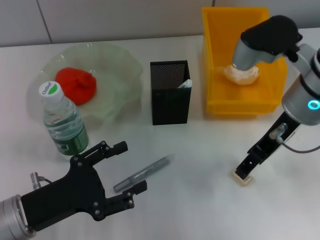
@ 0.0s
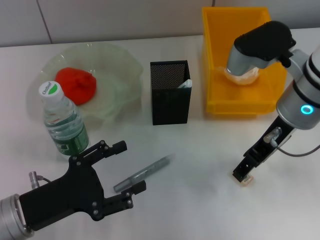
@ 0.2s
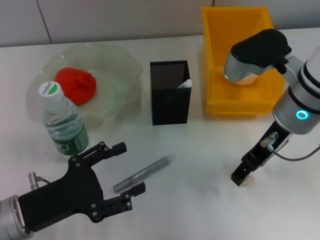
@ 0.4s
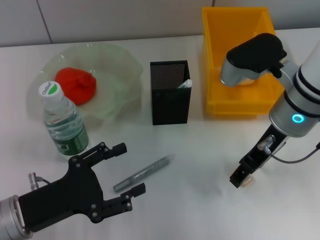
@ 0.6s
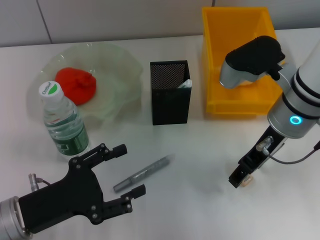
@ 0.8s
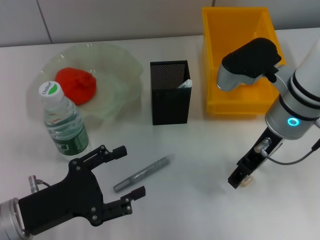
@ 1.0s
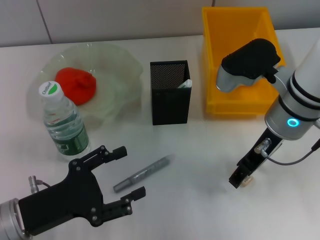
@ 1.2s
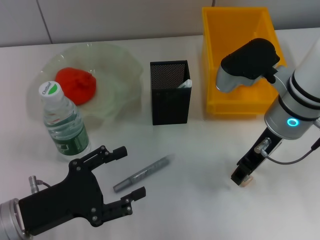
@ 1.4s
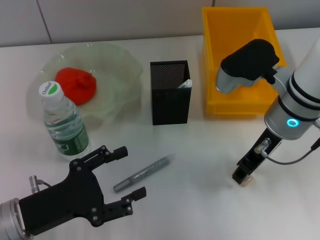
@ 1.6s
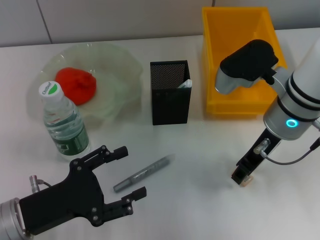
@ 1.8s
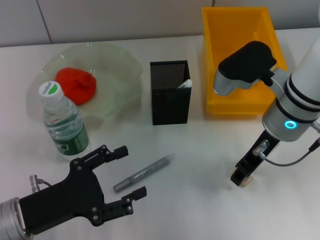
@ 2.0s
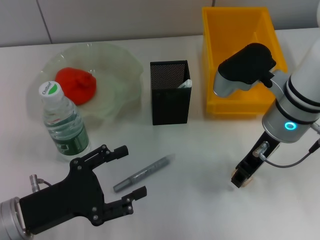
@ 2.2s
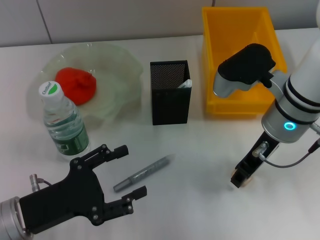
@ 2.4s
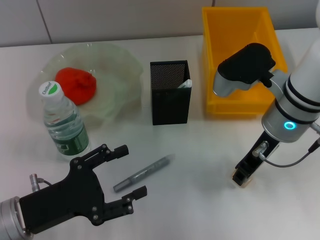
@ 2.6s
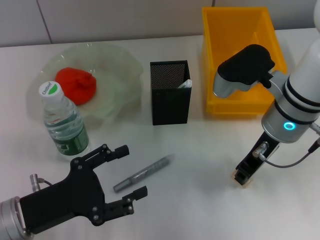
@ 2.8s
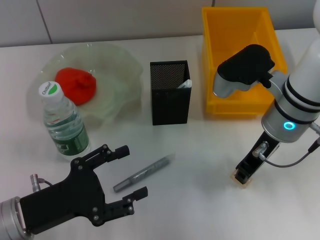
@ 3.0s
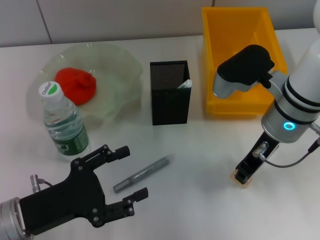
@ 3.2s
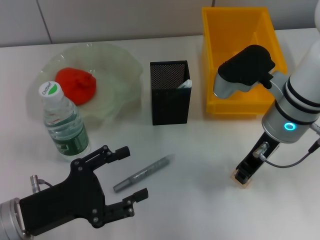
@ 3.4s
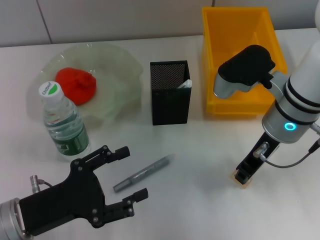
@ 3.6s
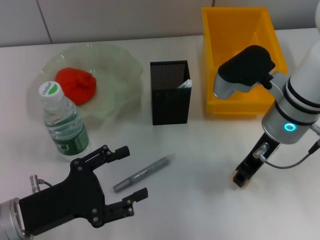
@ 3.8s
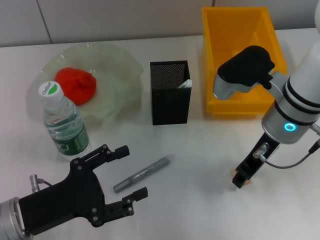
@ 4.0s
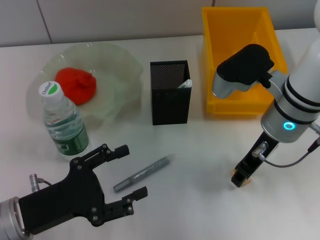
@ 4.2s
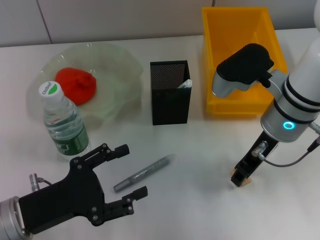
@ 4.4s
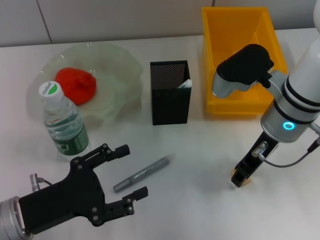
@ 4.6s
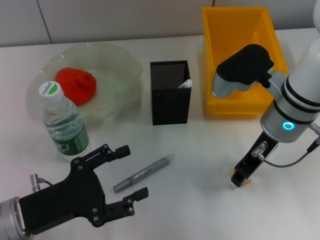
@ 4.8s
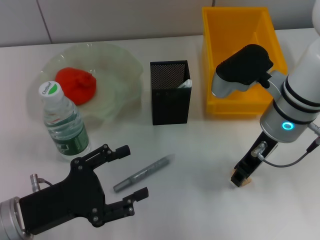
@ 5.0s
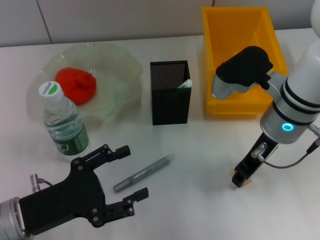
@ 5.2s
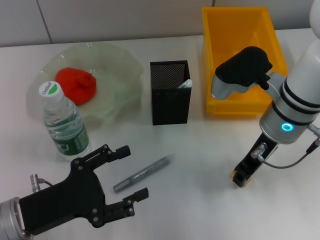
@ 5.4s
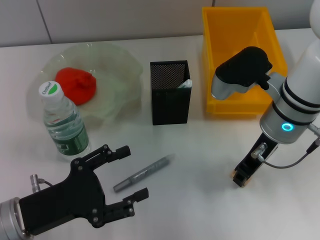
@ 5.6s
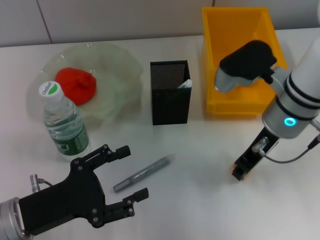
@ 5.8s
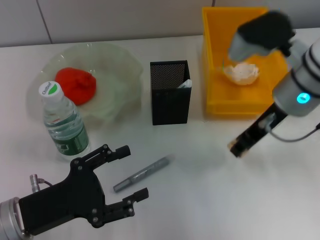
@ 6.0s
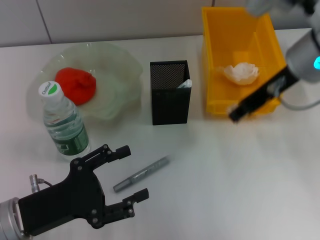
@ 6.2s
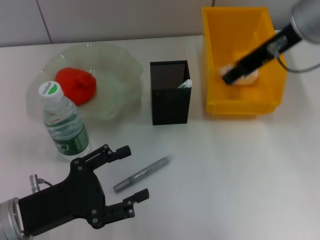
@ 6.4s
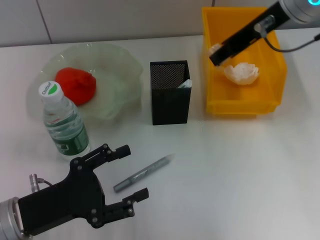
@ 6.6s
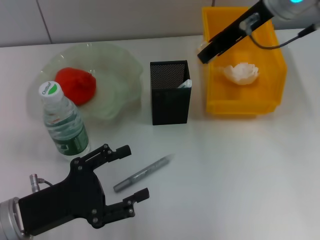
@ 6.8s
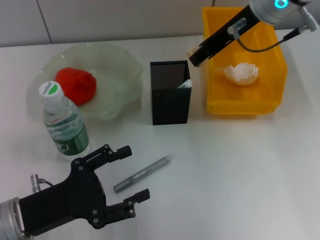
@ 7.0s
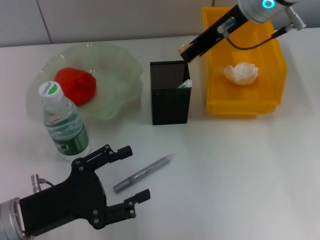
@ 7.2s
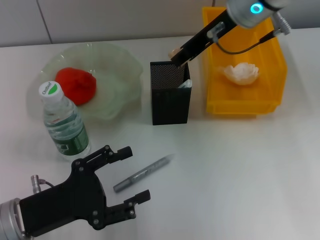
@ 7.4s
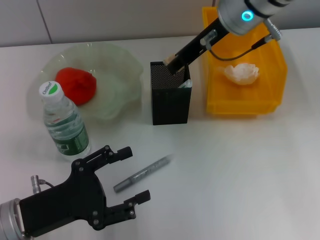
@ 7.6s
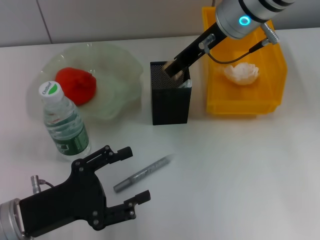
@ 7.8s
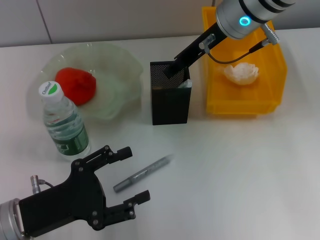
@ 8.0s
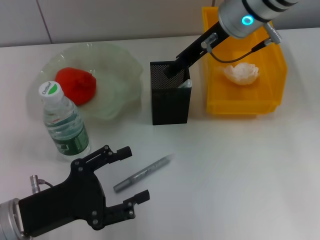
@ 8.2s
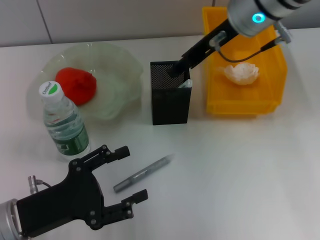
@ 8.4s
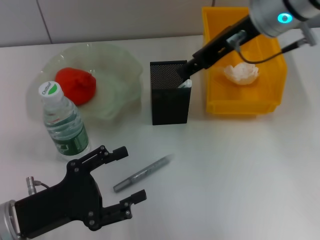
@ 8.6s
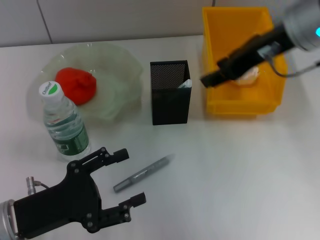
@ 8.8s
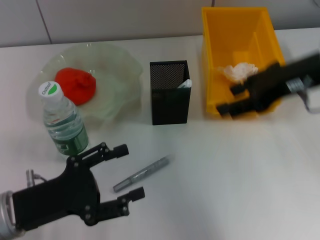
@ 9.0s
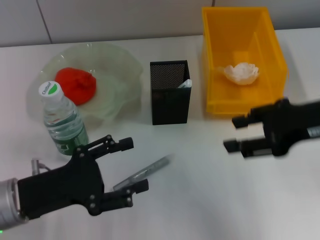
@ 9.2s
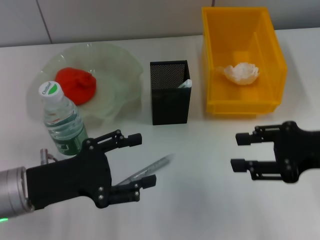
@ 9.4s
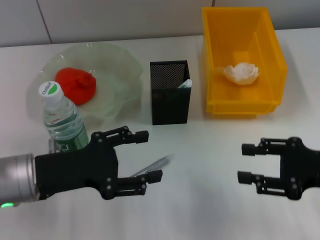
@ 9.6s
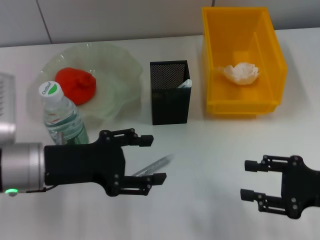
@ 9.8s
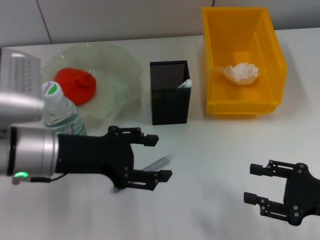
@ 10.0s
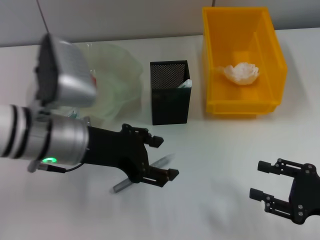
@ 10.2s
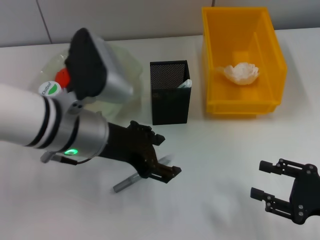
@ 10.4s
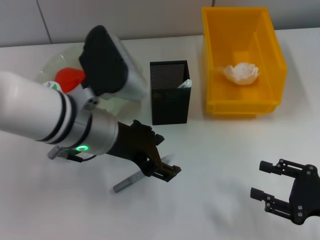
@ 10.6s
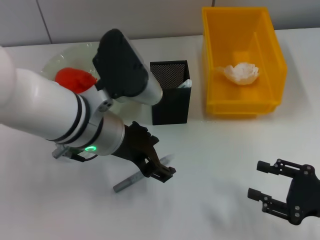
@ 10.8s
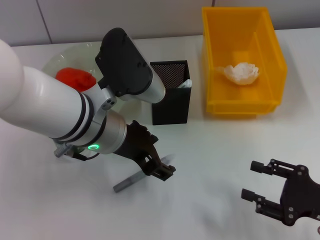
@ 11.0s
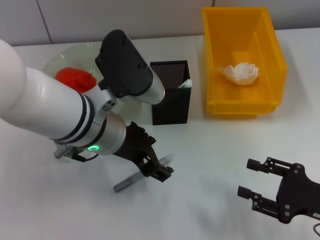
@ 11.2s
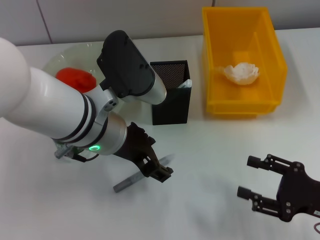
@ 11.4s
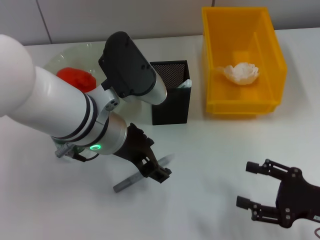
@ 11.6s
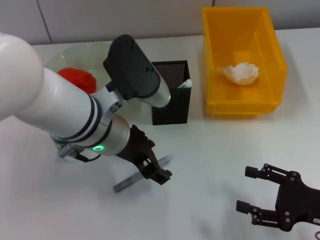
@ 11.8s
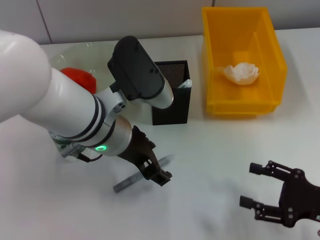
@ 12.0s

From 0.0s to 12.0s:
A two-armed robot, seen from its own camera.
Step, from 0.0s to 5.4s: Grab the eraser with the right hand.
Step, from 5.6s to 8.0s: Put the eraser into the pen holder with the right hand.
From 0.0s to 1.6s: The grippers make only small movements.
From 1.6s to 3.0s: The right gripper closes.
From 3.0s to 4.4s: Both grippers stay put.
From 4.4s to 6.0s: The grippers stay close to where they were, moving slightly.
From 6.0s to 7.6s: The right gripper is displaced forward, upward and to the left by some 10 cm.
From 7.6s to 9.0s: The right gripper heads backward and to the right, covering approximately 15 cm, and opens.
From 9.0s to 10.4s: The right gripper travels downward, backward and to the right by about 25 cm. Meanwhile the left gripper goes about 15 cm to the right, upward and forward.

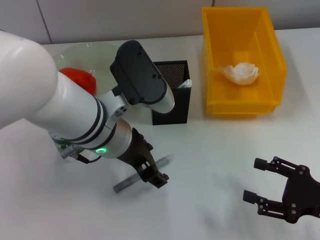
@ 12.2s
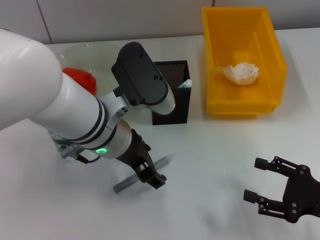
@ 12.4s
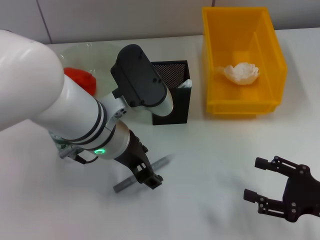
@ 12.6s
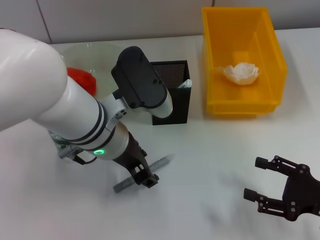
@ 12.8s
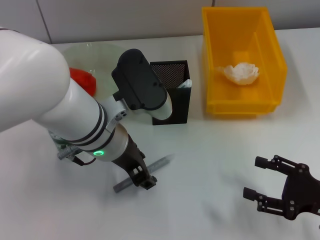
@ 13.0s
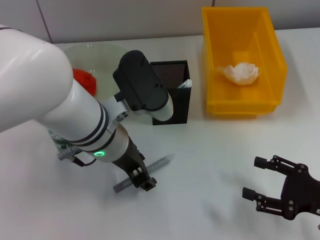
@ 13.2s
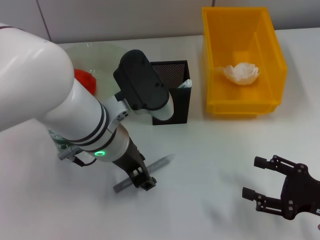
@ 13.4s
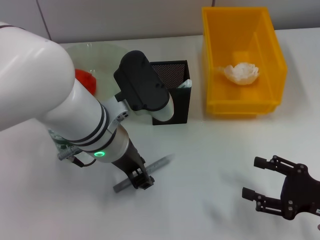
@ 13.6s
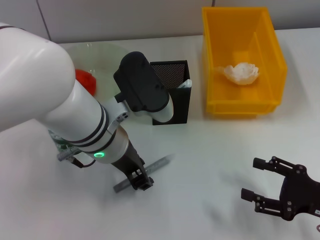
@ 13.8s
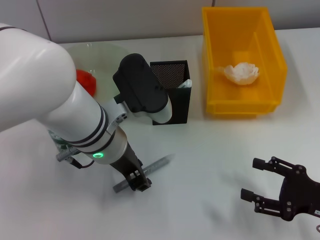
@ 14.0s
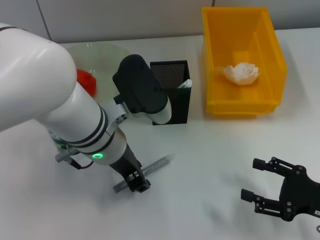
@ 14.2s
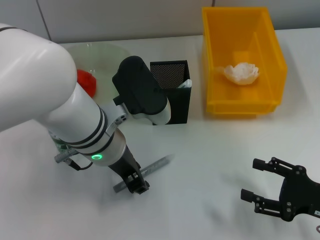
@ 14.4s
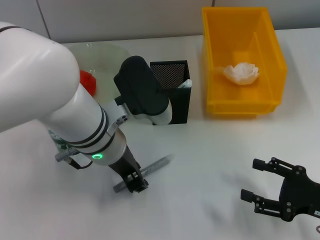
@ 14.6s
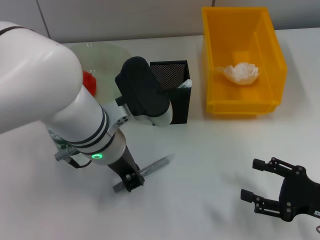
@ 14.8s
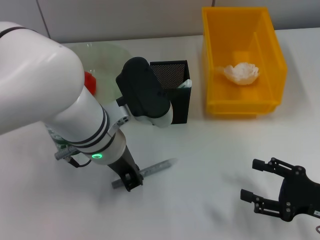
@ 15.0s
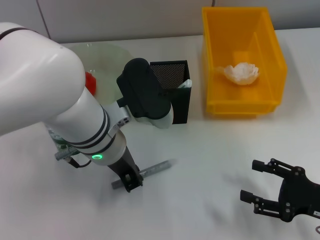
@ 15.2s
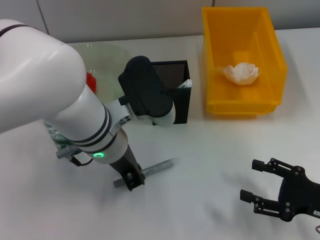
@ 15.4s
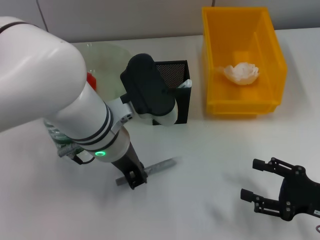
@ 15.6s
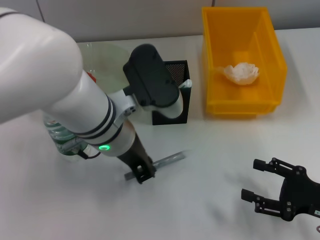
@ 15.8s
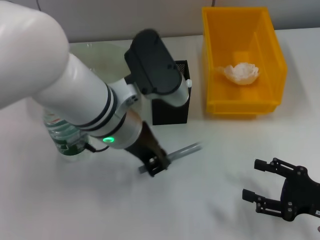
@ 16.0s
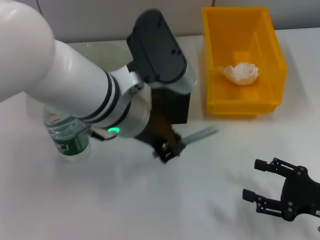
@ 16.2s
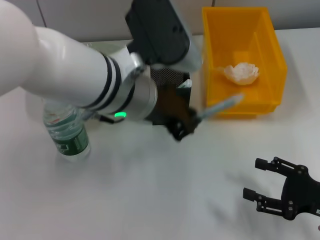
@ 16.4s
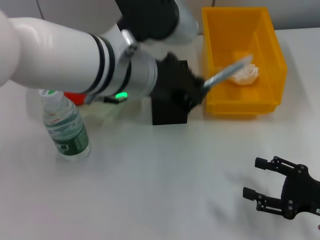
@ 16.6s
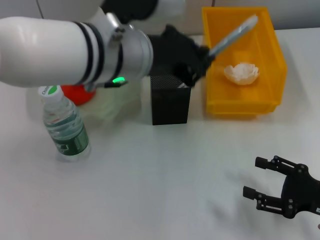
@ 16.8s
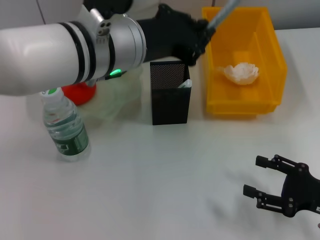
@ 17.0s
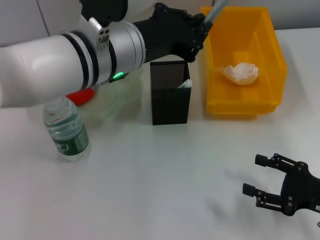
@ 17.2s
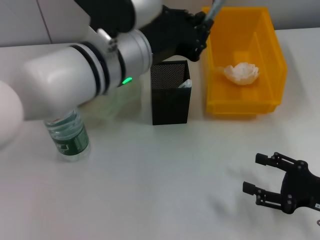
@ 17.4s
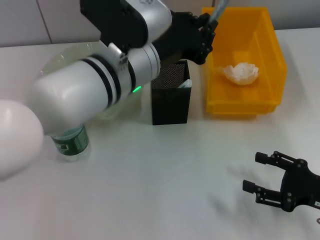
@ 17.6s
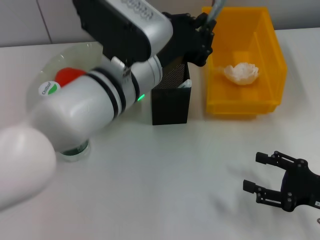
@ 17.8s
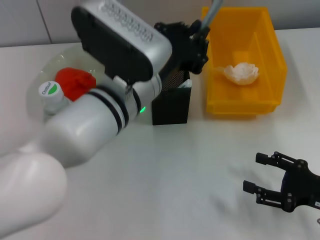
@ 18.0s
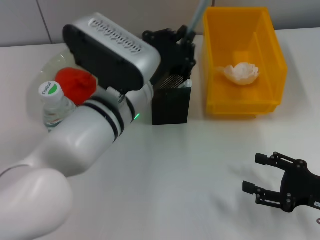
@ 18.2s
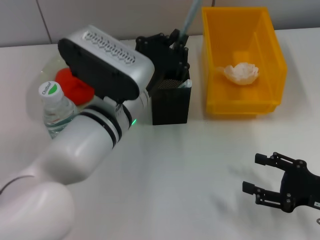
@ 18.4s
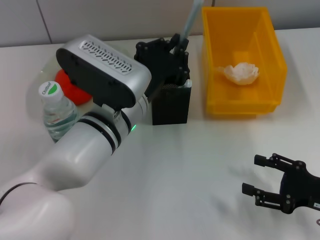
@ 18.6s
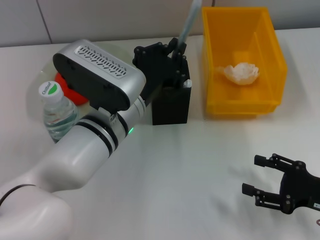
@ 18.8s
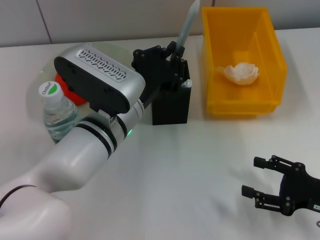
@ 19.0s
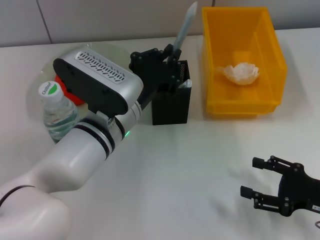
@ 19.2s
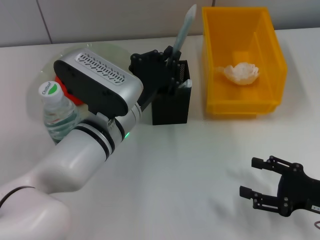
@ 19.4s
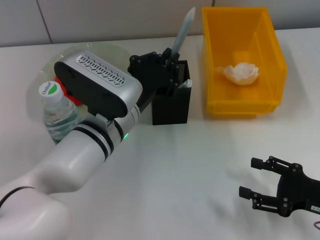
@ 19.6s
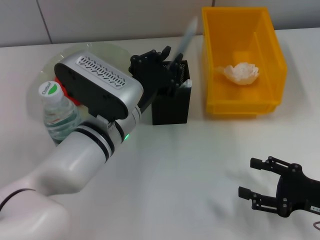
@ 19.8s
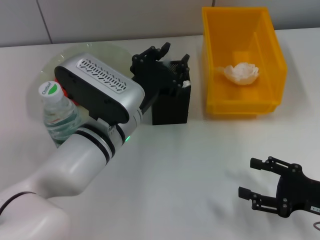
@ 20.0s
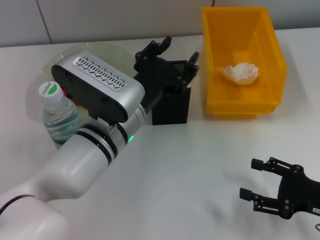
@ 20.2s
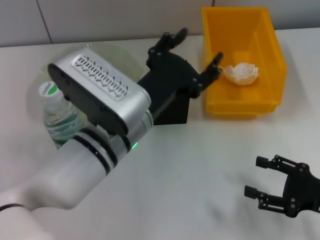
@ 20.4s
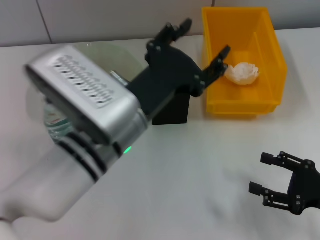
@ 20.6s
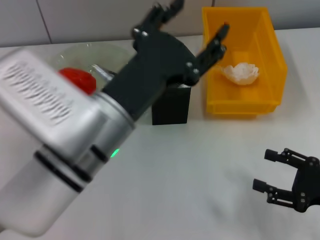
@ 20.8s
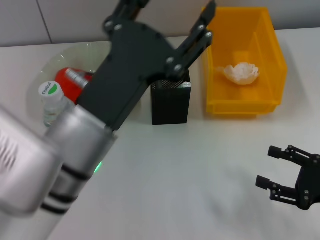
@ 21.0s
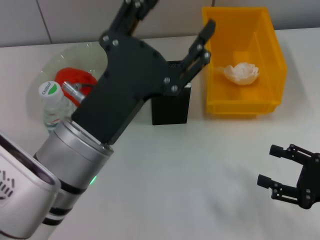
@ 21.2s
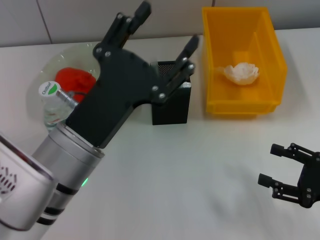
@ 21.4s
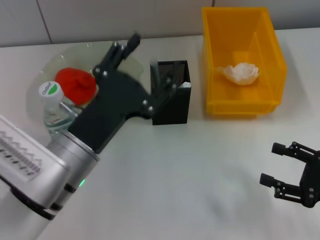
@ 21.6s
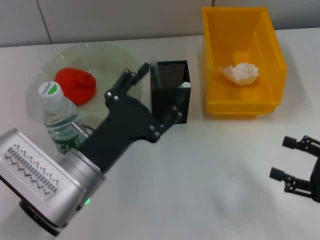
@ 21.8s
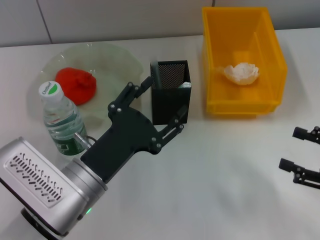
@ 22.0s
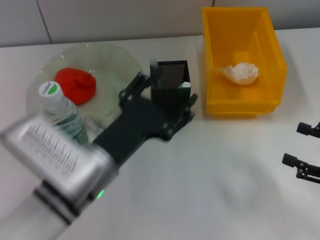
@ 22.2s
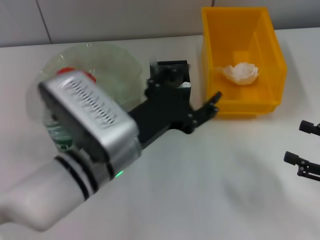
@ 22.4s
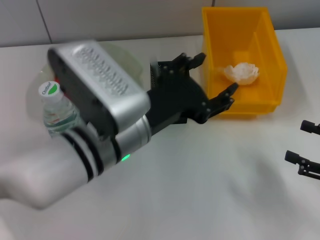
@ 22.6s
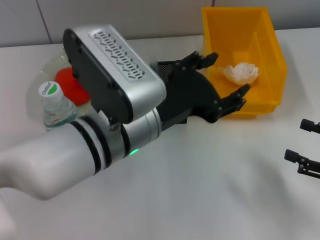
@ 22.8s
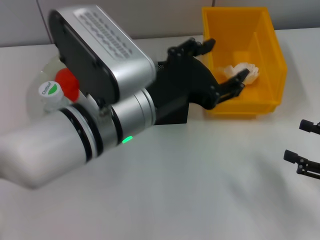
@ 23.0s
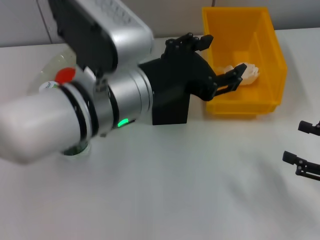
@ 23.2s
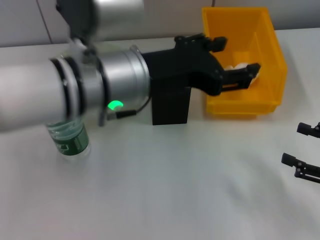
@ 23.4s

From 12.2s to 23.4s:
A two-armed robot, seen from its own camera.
Step, from 12.2s to 15.0s: Grab the gray glue with the left hand.
Step, from 15.2s to 20.0s: Place the gray glue into the pen holder with the left hand.
From 12.2s to 13.8s: The left gripper closes up.
From 13.8s to 15.4s: The left gripper closes up.
From 15.4s to 17.0s: The left gripper moves upward, approximately 10 cm.
From 17.0s to 18.6s: The left gripper travels downward by some 10 cm.
From 18.6s to 20.2s: The left gripper opens up.
From 20.2s to 21.8s: The left gripper shifts some 10 cm backward and to the left, travels upward and back again, roughly 5 cm each way, and opens its fingers.
From 21.8s to 23.4s: The left gripper is displaced upward, forward and to the right by approximately 15 cm.
